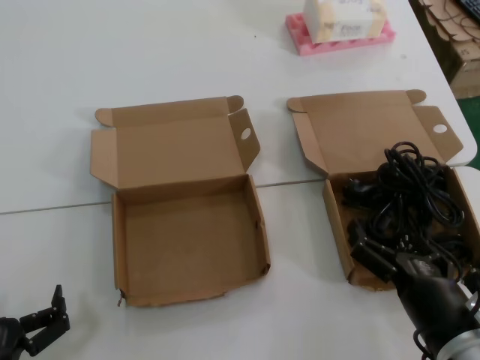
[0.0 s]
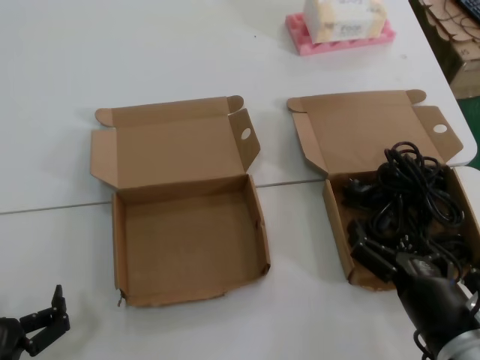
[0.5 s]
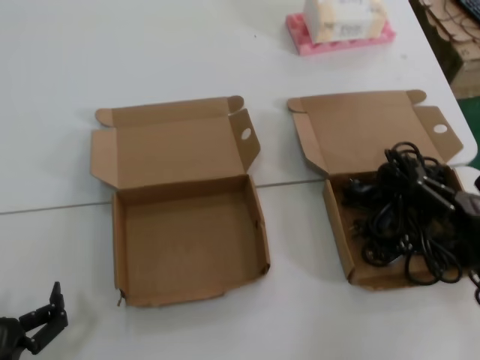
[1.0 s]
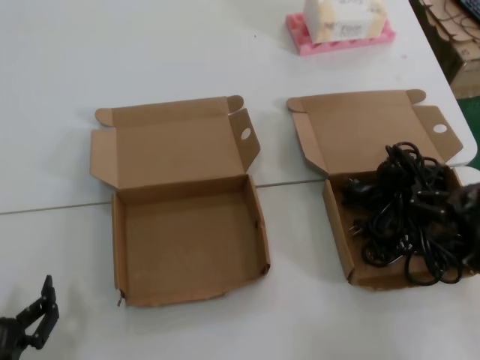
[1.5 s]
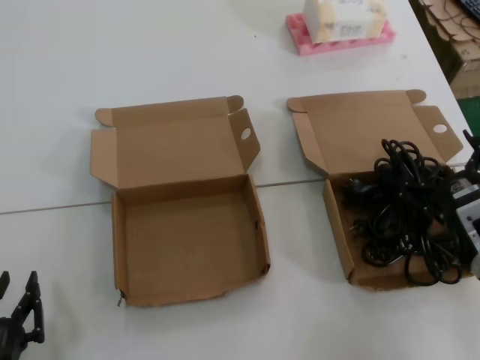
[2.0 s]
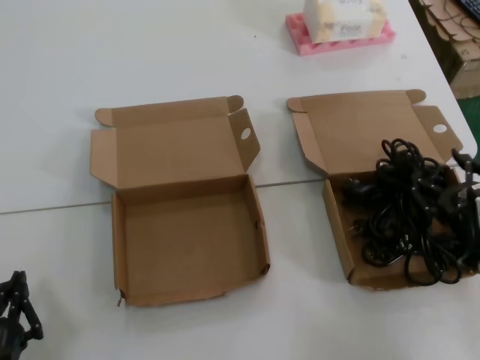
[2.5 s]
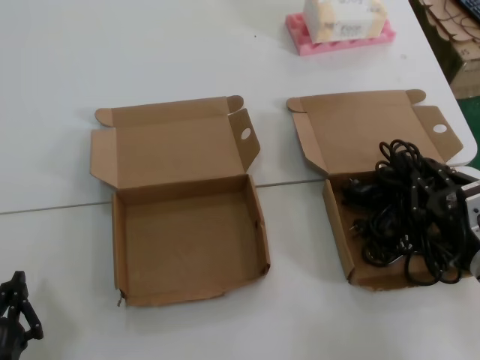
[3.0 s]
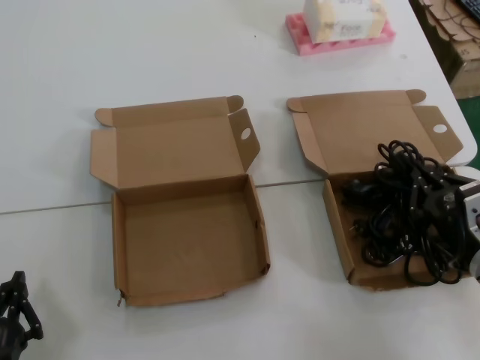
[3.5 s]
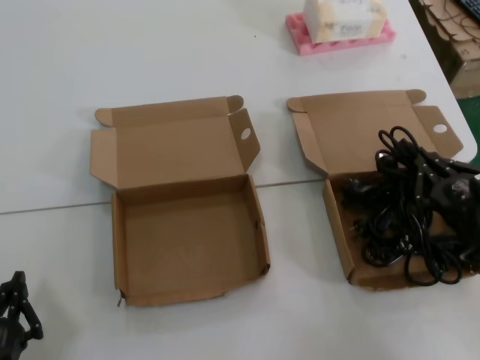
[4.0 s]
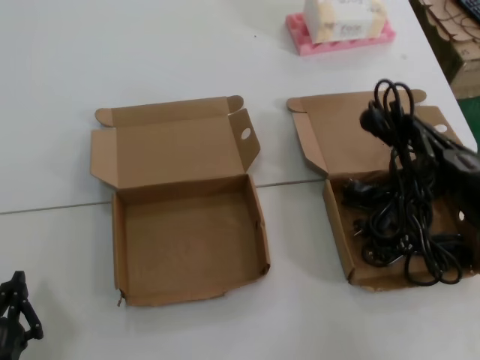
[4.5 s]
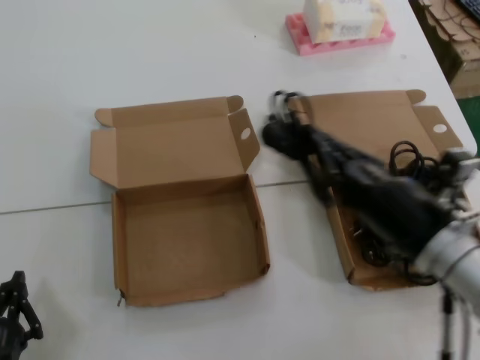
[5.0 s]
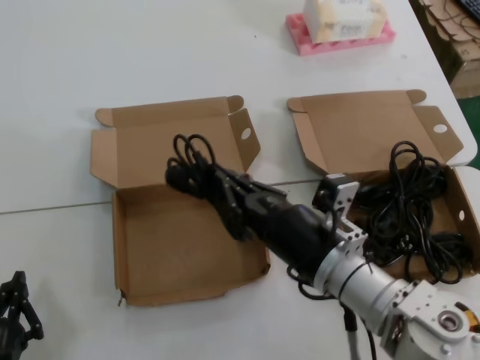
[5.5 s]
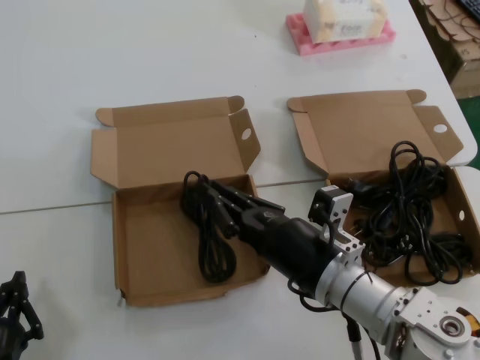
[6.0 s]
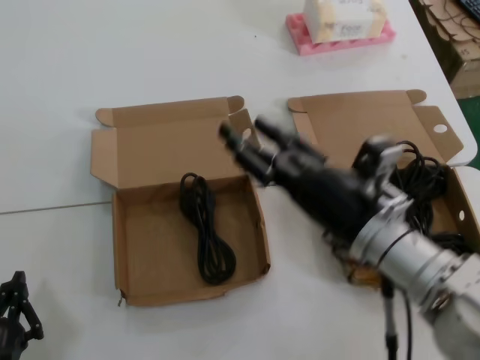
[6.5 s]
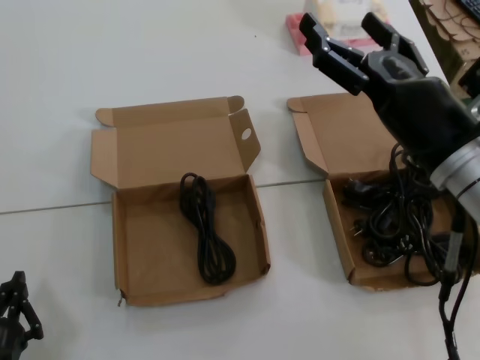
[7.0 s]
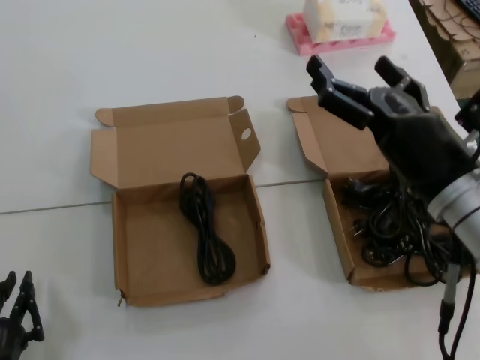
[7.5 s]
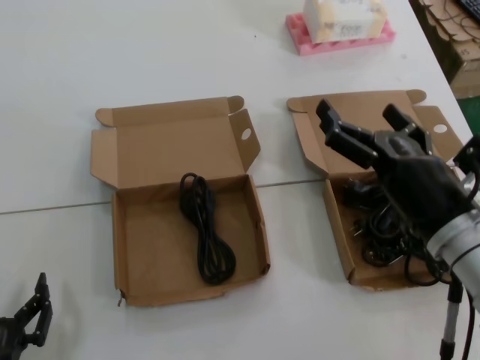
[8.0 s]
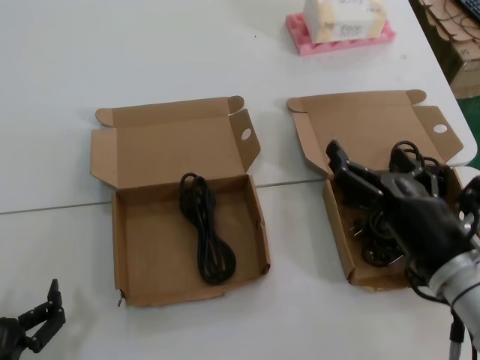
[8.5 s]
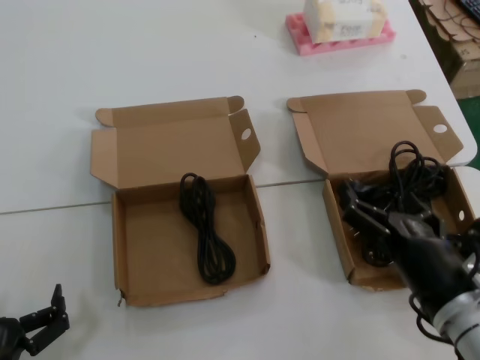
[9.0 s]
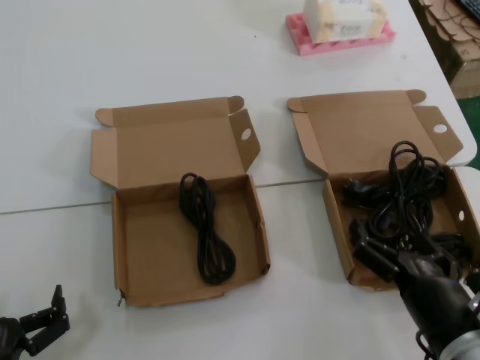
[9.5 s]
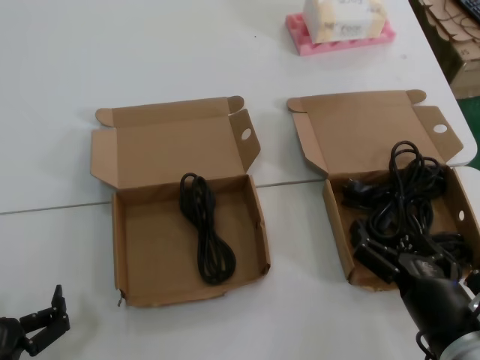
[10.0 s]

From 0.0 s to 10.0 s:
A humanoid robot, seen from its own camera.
Task of the whole recording: Pick up the power cord from the box containing it and place it in another box.
Step, from 0.0 s to 3.0 s: Grasp the data cable.
Step, from 3.5 s to 6.0 s: Place the data cable in the another box.
From 0.0 s to 2.0 s: The right hand moves forward and to the right, roughly 15 cm.
From 2.0 s to 4.0 s: The hands make only small movements.
From 4.0 s to 6.0 s: The right hand is displaced to the left by approximately 20 cm.
From 6.0 s to 8.0 s: The right hand goes roughly 10 cm to the right and upward.
From 8.0 s to 10.0 s: The right hand is displaced downward and backward by about 15 cm.
